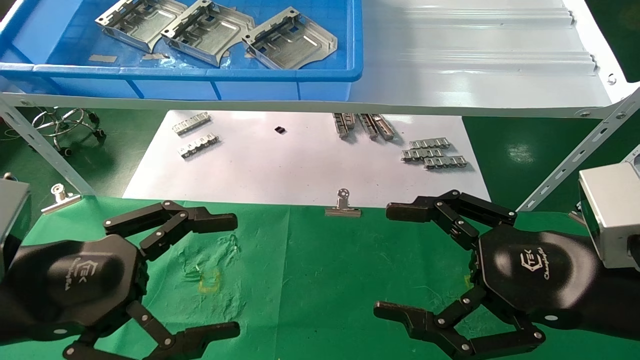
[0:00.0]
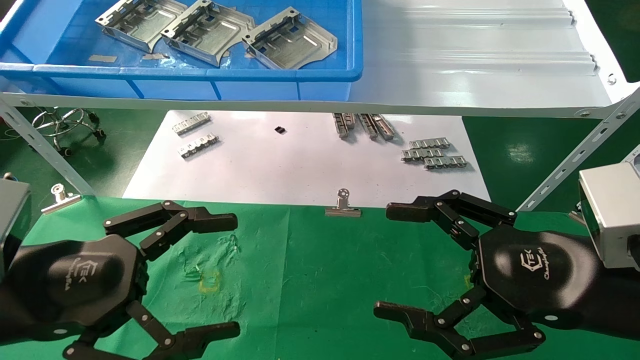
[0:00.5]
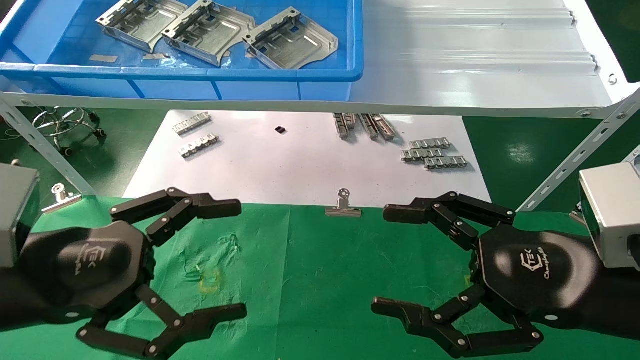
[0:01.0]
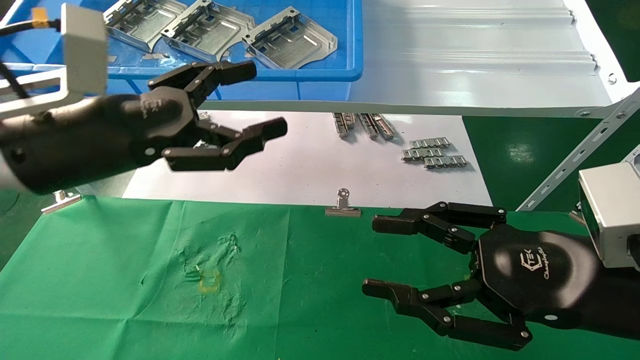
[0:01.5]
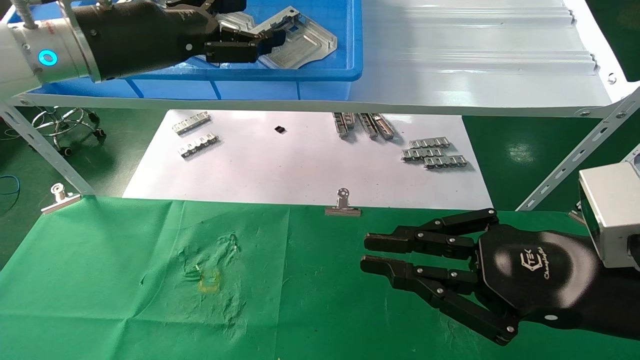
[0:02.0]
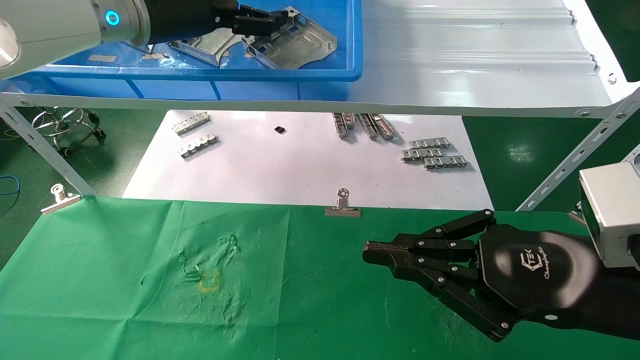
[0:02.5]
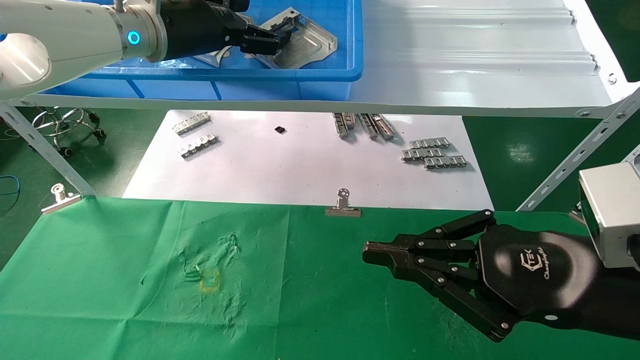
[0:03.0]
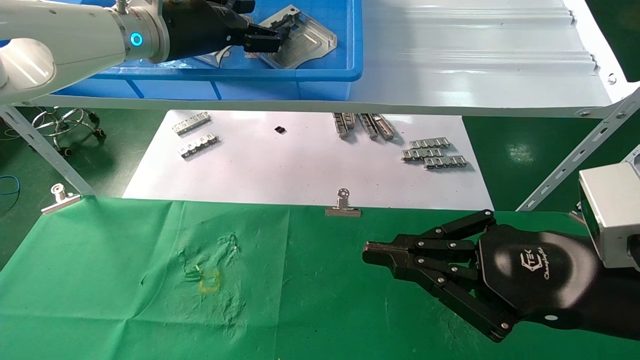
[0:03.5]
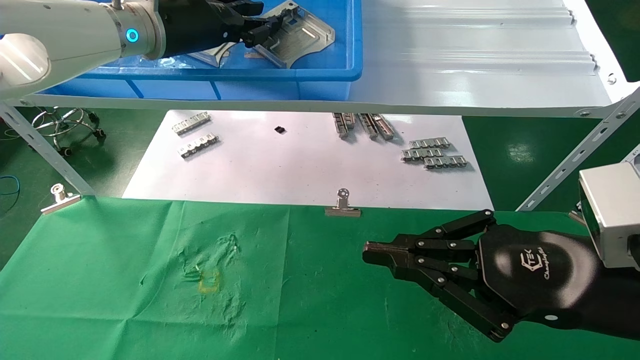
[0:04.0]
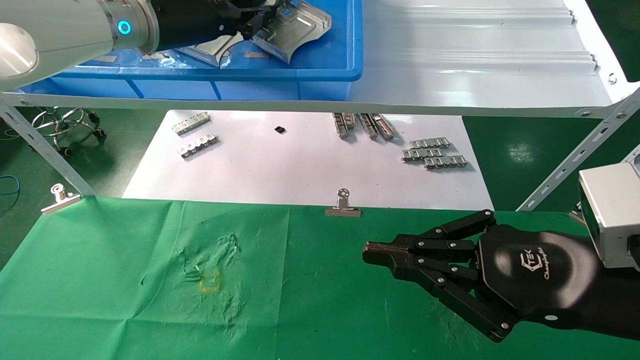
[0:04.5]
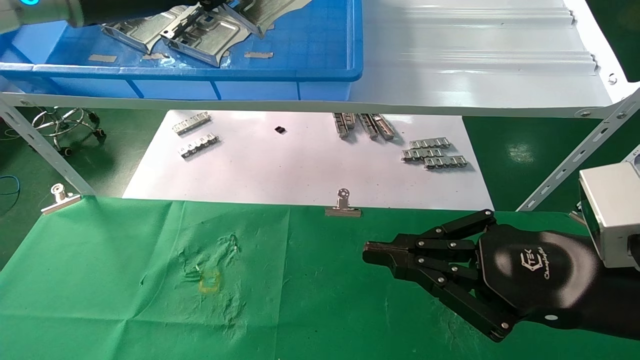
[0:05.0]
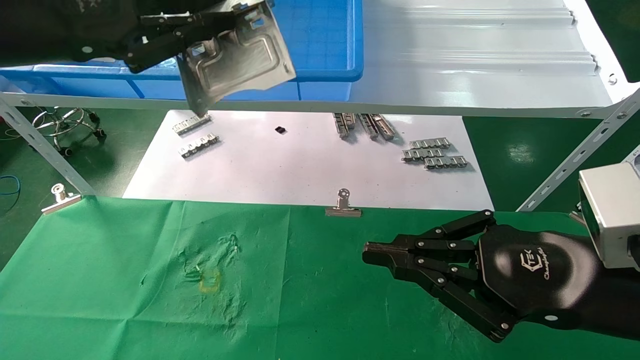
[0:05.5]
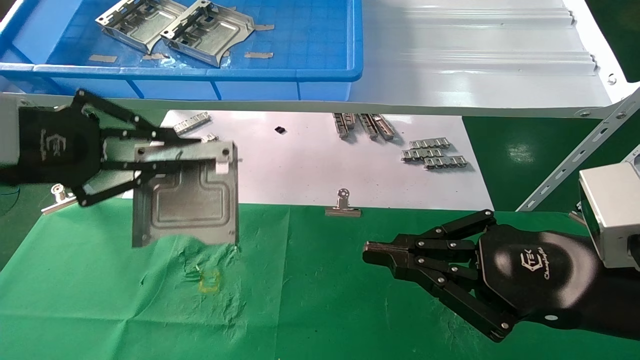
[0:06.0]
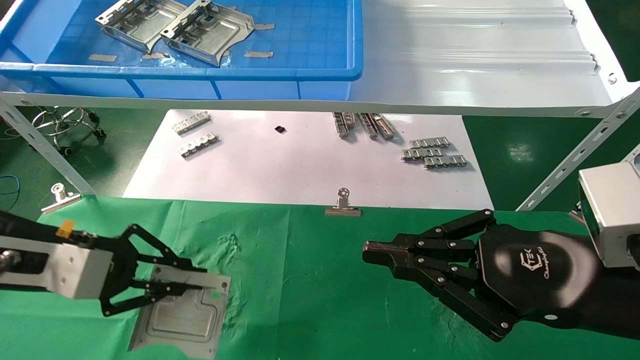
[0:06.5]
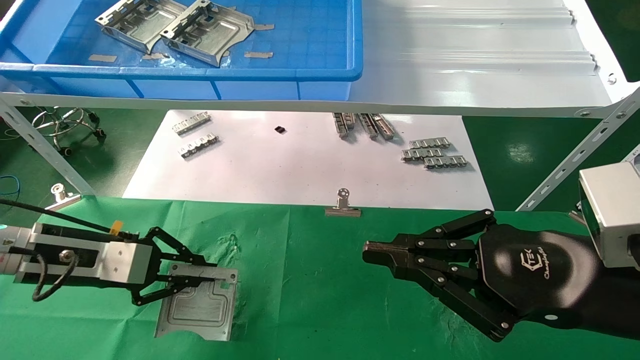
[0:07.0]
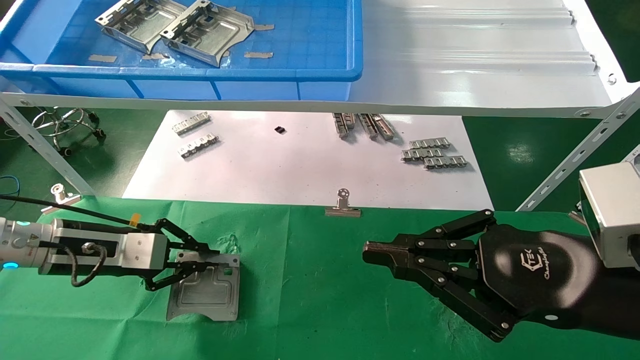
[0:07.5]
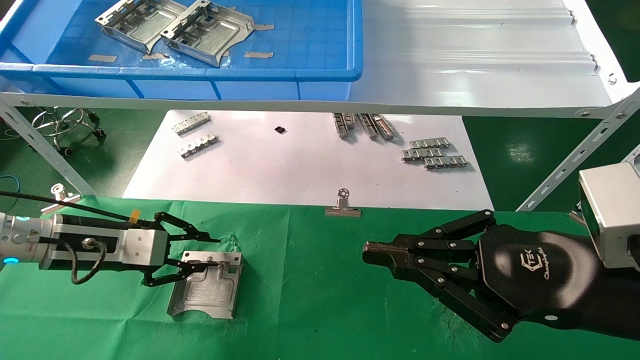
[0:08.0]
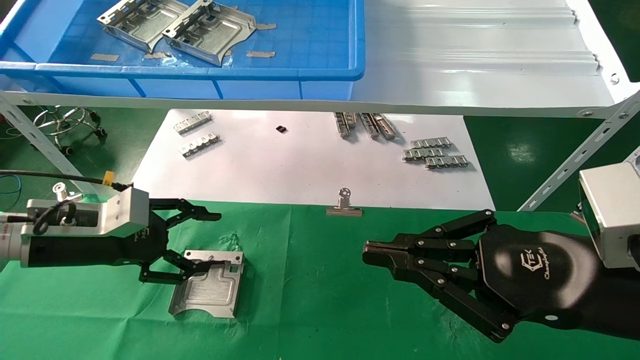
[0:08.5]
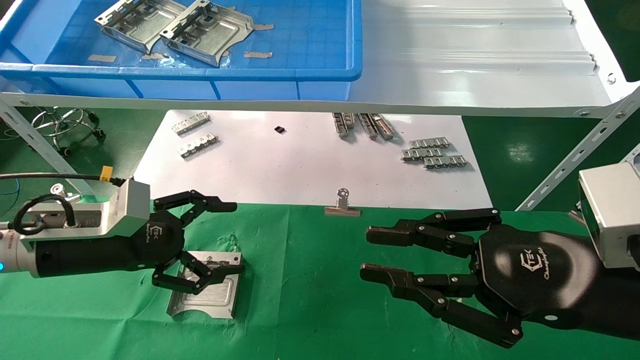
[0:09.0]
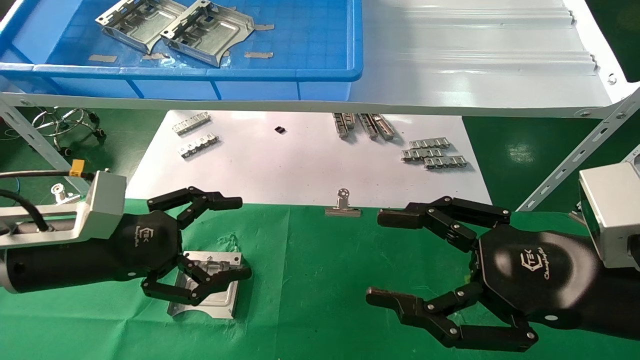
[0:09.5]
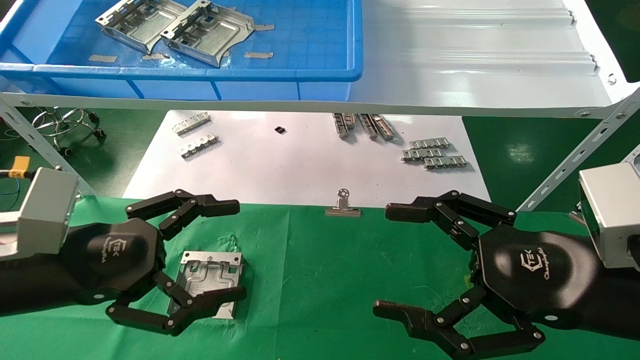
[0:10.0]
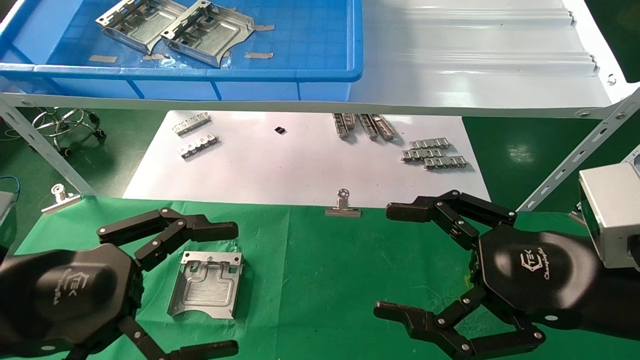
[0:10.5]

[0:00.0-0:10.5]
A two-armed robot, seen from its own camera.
Task of the whole recording: use the mechanical arm to pick up the parts and place them on the table.
Step, 0:01.5 to 0:04.0: Pick up the hard drive bracket from the feeding area.
Step, 0:04.5 to 0:07.5: Place the hard drive bracket into the box.
0:00.0 to 0:02.0: The left gripper heads upward and forward, covering some 25 cm; the right gripper closes its fingers.
0:02.0 to 0:04.0: The left gripper travels forward by about 5 cm, and closes its fingers.
0:04.0 to 0:06.5: The left gripper shifts some 30 cm downward, to the left and backward, and closes.
0:06.5 to 0:08.5: The left gripper travels forward by some 5 cm, and opens its fingers.
0:08.5 to 0:10.5: The left gripper heads backward, covering approximately 15 cm, and opens up, while the right gripper opens up.

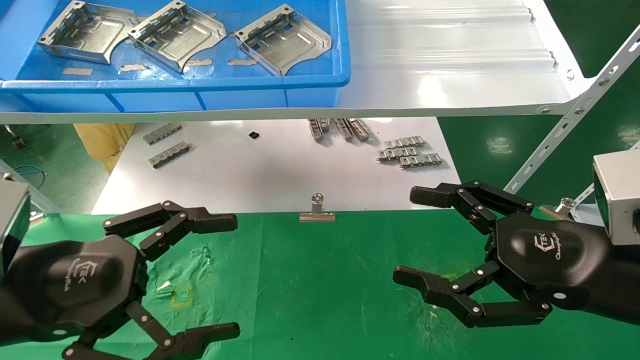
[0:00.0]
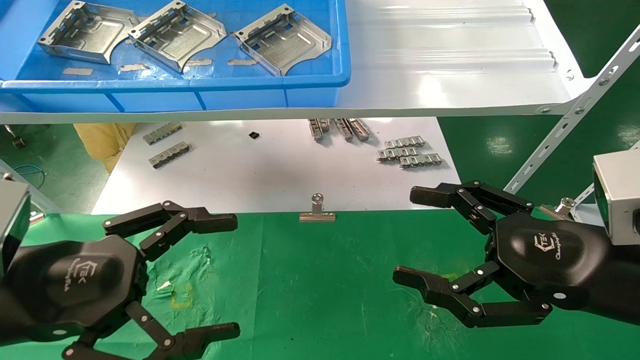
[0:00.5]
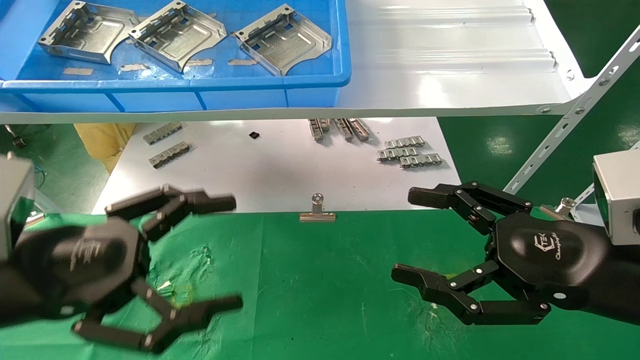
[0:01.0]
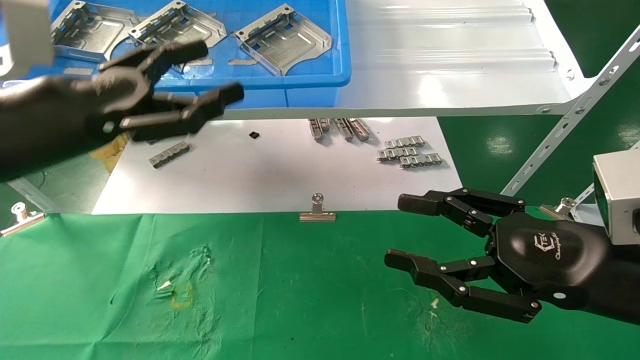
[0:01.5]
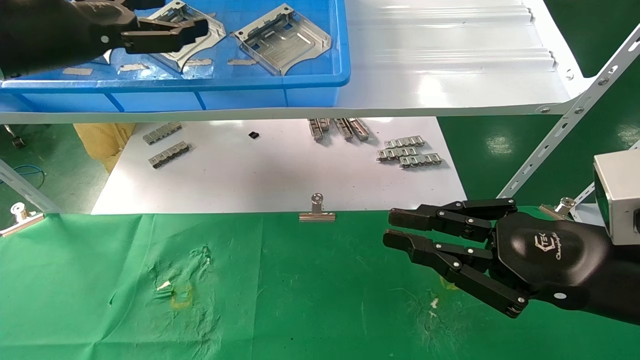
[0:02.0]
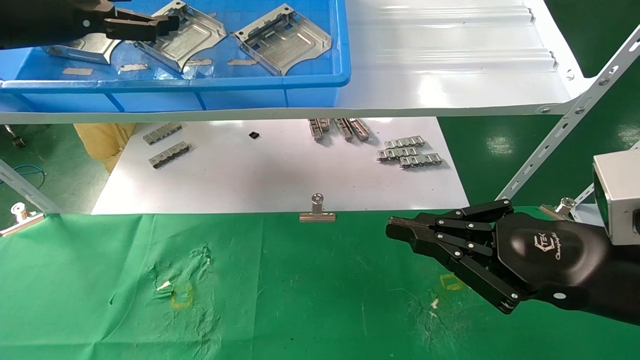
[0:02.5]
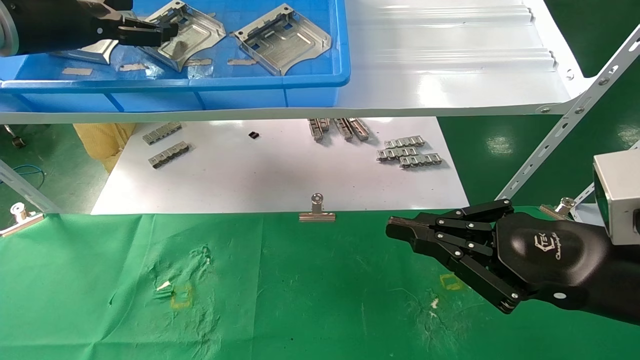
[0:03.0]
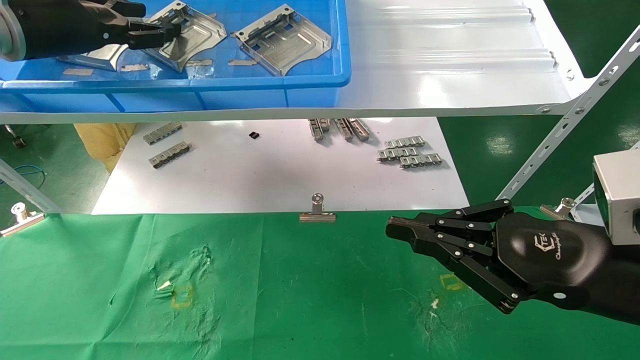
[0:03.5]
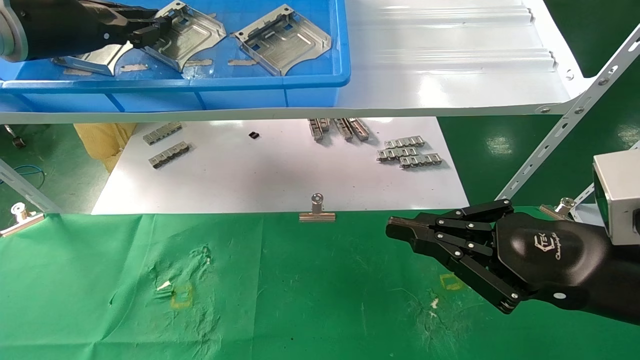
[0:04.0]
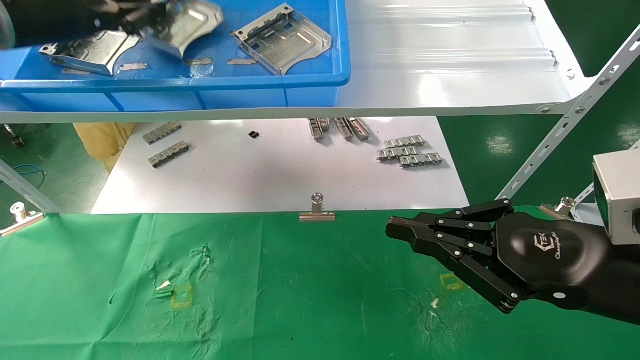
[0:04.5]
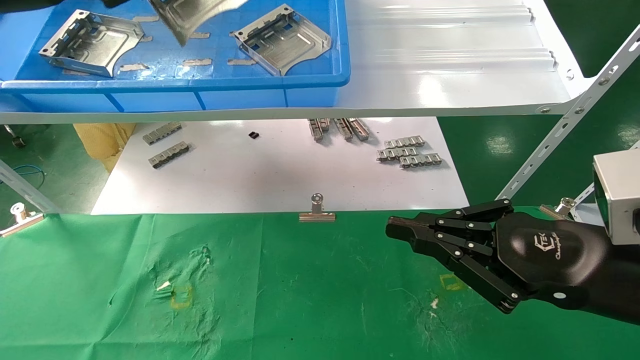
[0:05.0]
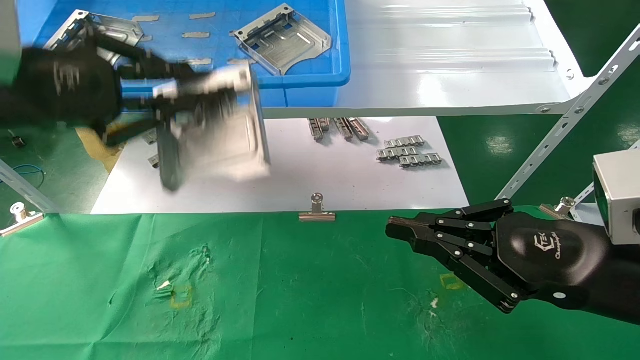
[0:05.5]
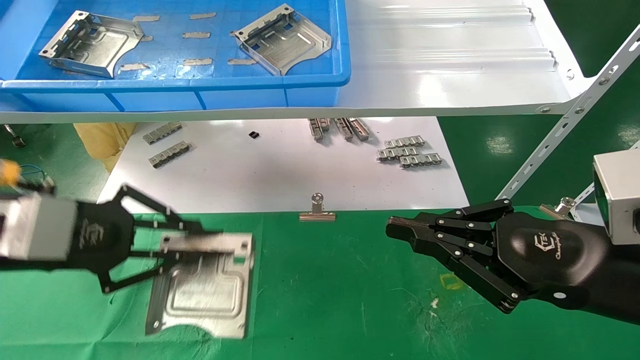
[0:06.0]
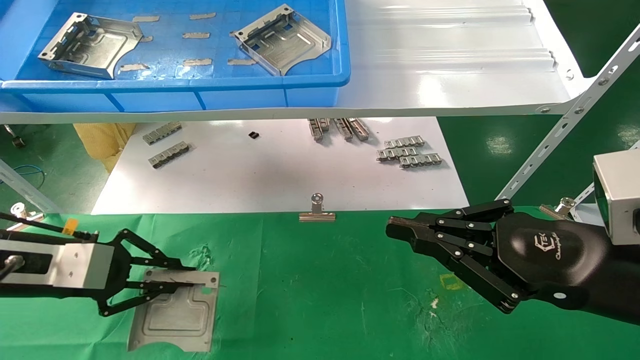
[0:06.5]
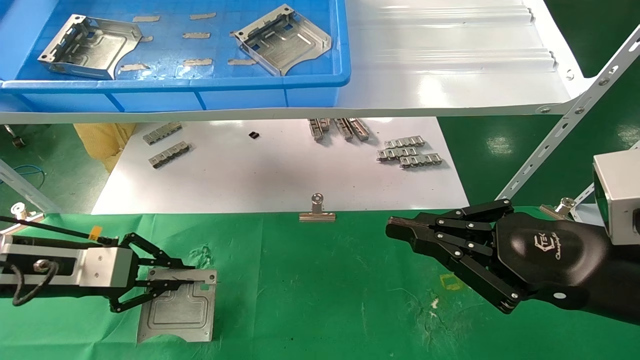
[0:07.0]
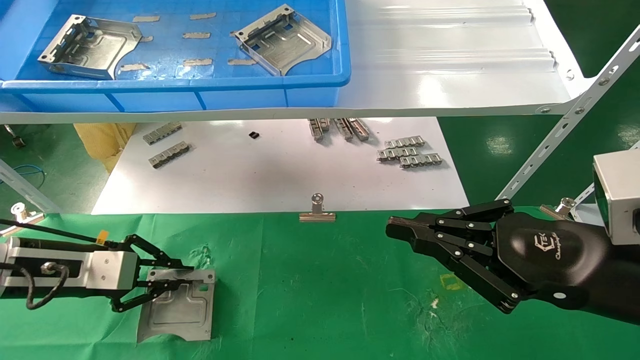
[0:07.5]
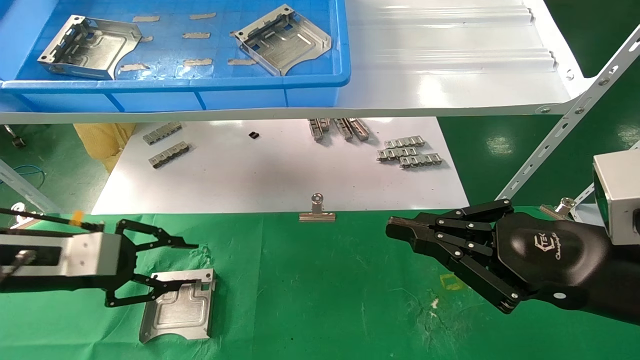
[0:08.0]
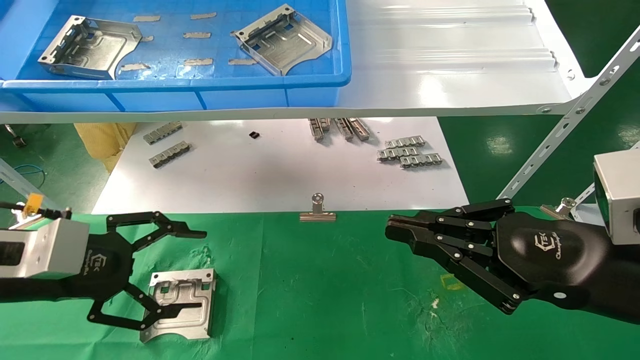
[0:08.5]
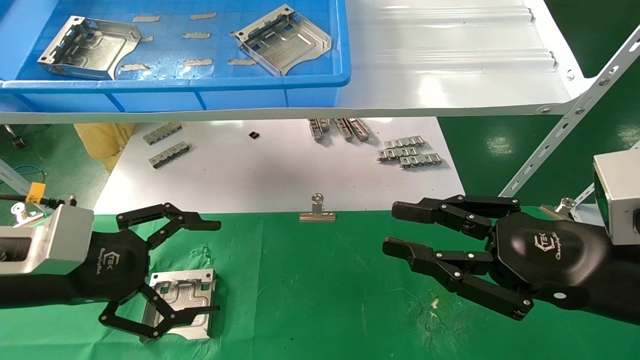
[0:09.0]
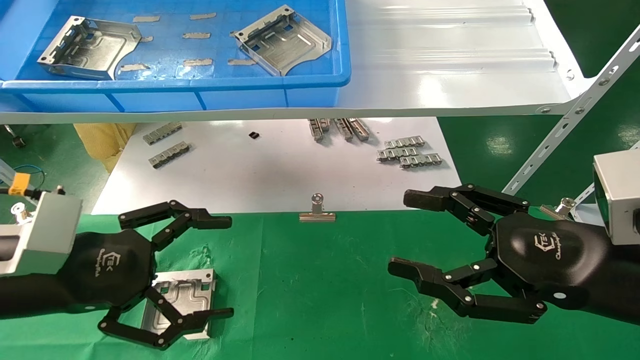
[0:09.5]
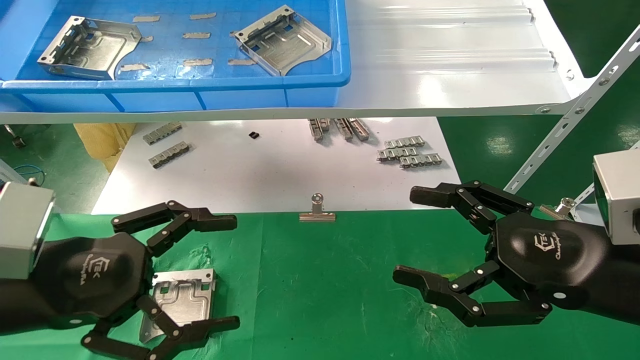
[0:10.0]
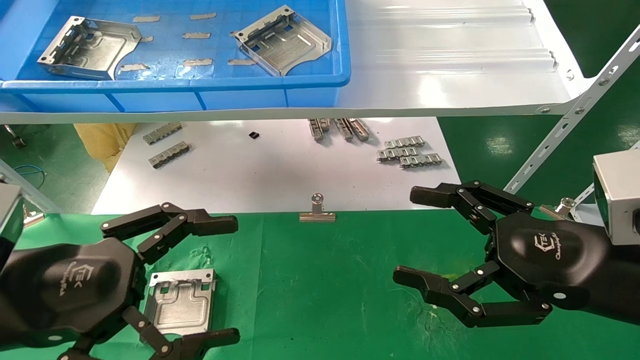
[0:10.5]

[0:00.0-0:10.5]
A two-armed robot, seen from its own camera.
Task of the whole recording: use the mechanical arm to pick up the parts and place them on the table.
Step, 0:01.5 to 0:04.0: Pick up the hard drive bracket from the feeding area.
Step, 0:04.5 to 0:07.5: Place the hard drive bracket into the box.
0:00.0 to 0:02.0: The right gripper closes. Meanwhile the left gripper travels upward and forward by approximately 25 cm.
0:02.0 to 0:04.0: The left gripper heads forward, covering about 5 cm, and closes.
0:04.0 to 0:06.5: The left gripper is displaced downward and backward by roughly 25 cm.
0:06.5 to 0:08.5: The left gripper opens up.
0:08.5 to 0:10.5: The right gripper opens up. Meanwhile the left gripper shifts some 10 cm backward and to the right.
